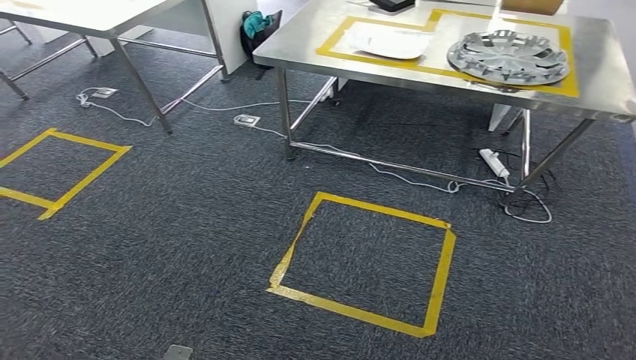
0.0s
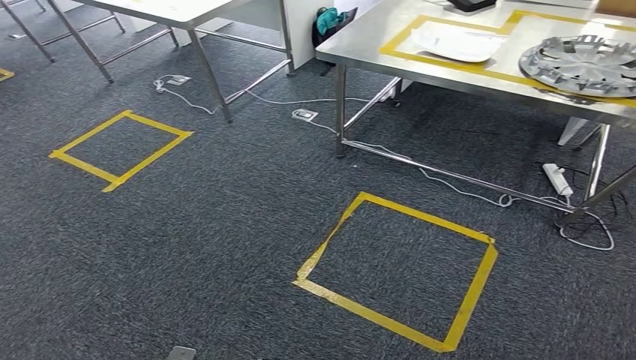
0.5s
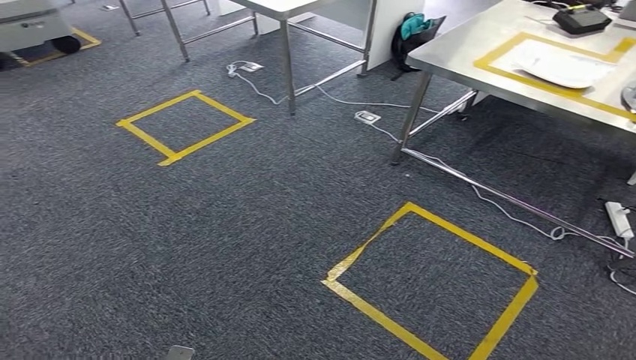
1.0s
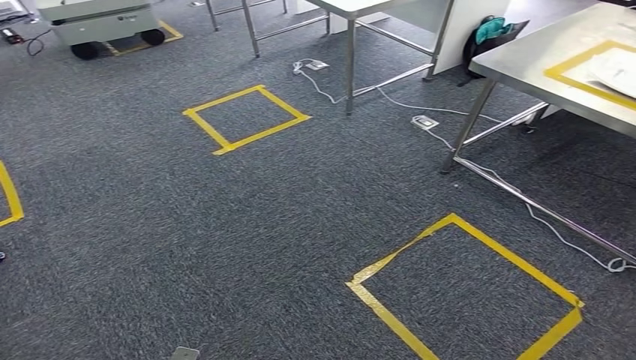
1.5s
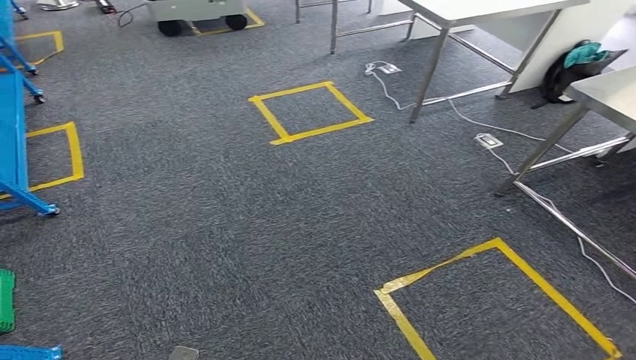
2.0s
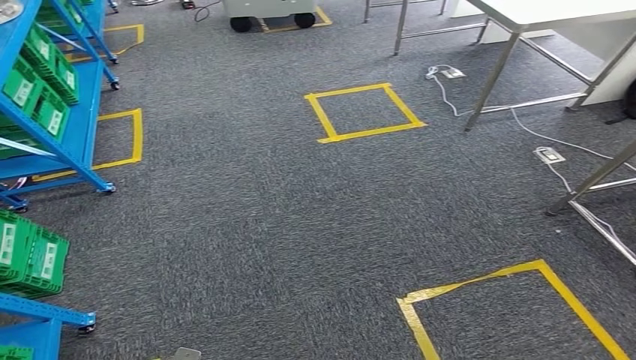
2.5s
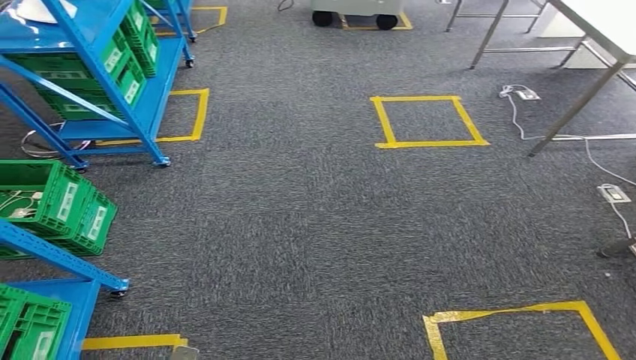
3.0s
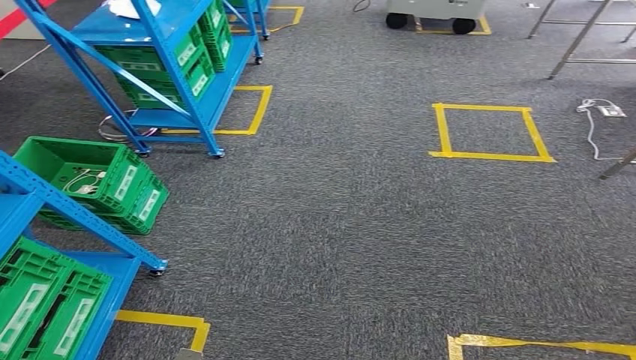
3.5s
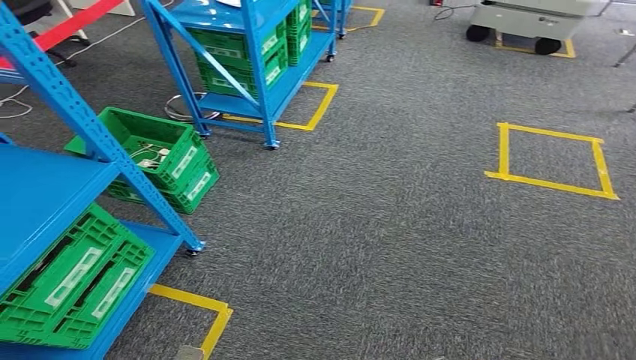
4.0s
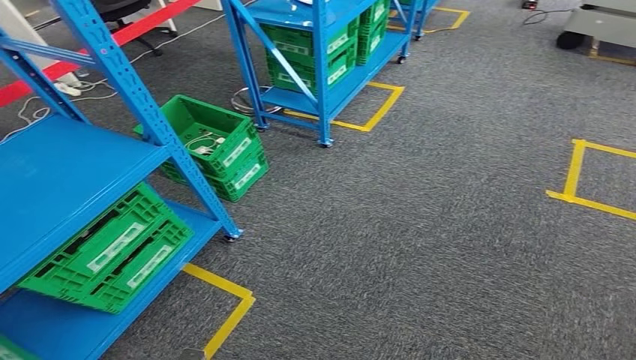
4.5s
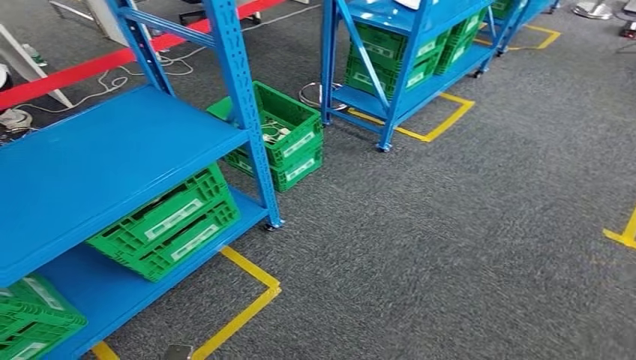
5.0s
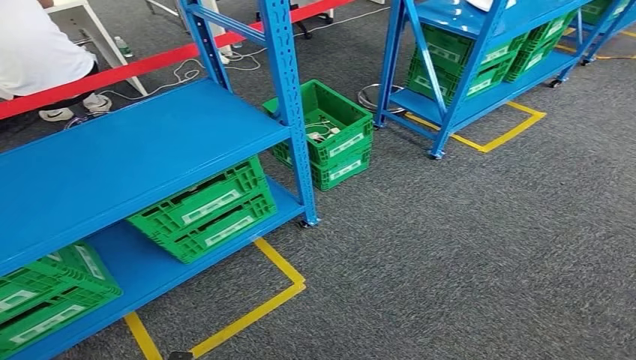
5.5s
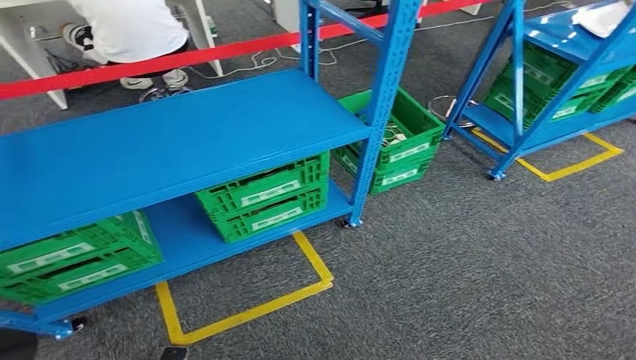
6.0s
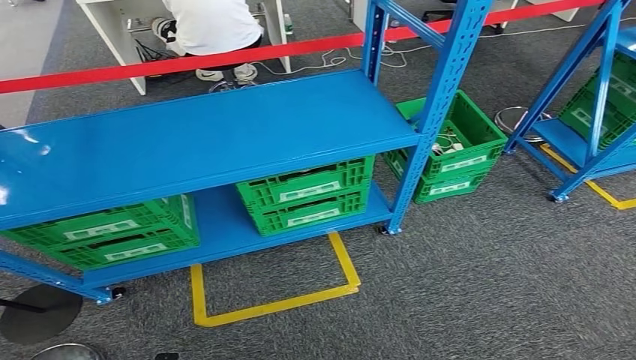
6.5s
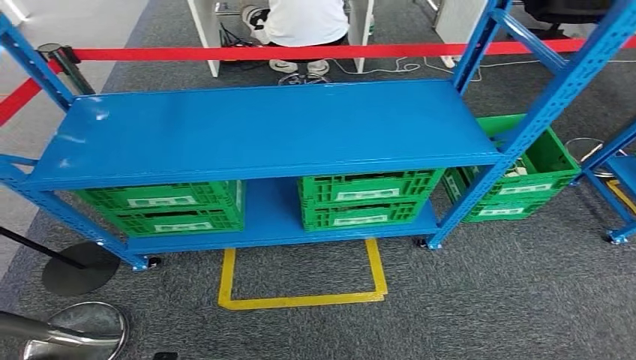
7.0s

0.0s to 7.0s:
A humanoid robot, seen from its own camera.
Step, 0.0s to 7.0s: Return to the initial position at the workbench.
